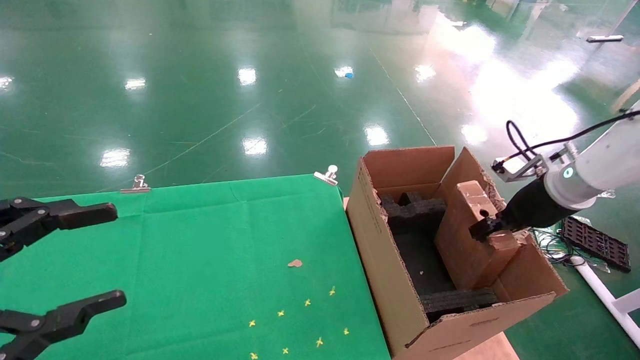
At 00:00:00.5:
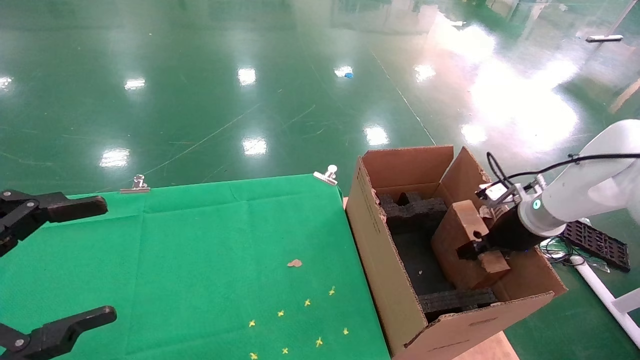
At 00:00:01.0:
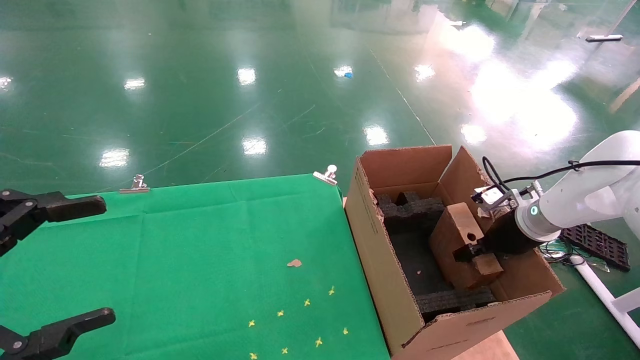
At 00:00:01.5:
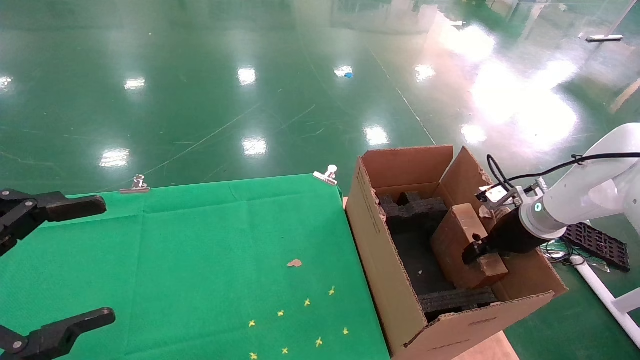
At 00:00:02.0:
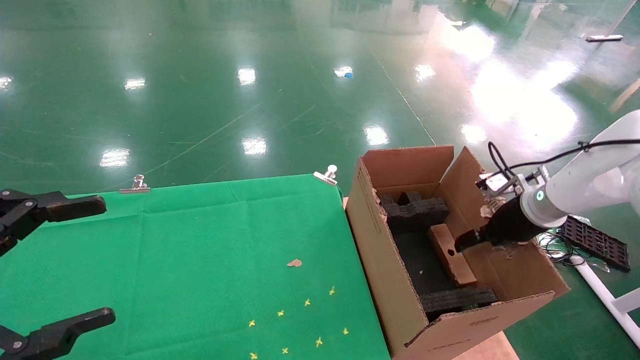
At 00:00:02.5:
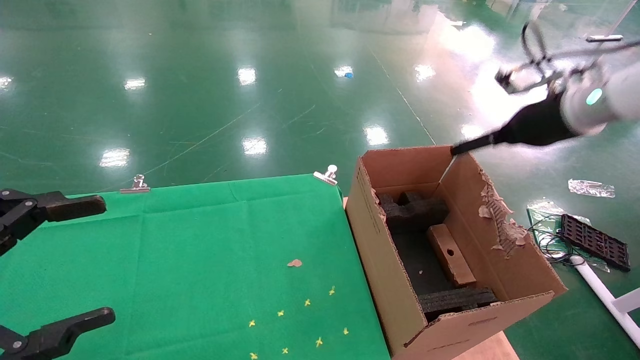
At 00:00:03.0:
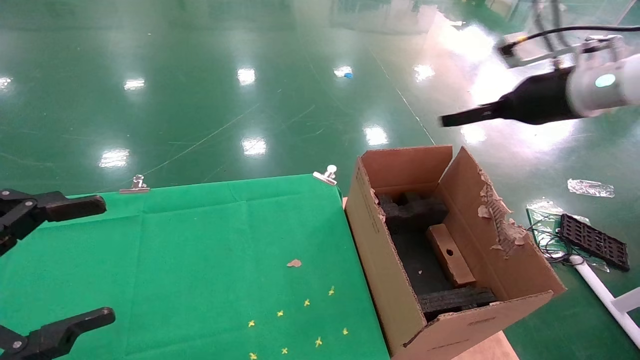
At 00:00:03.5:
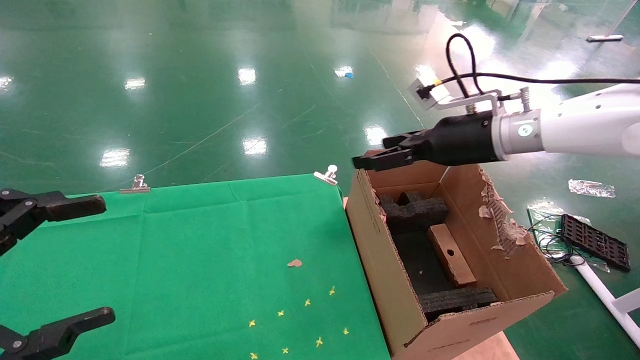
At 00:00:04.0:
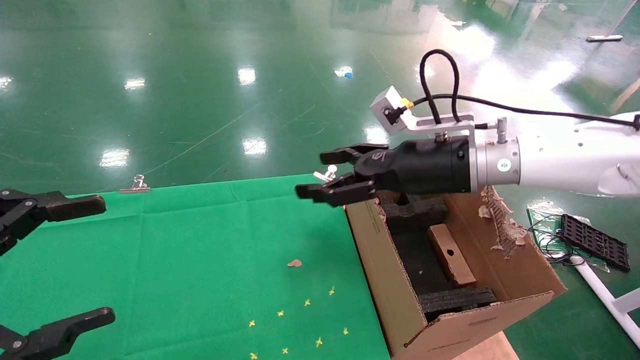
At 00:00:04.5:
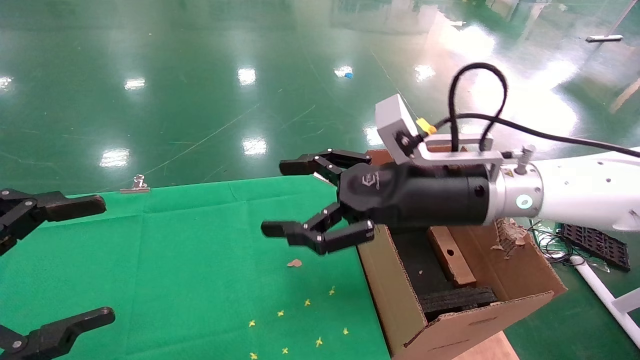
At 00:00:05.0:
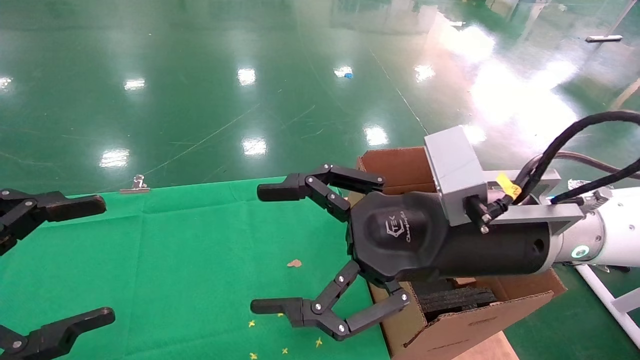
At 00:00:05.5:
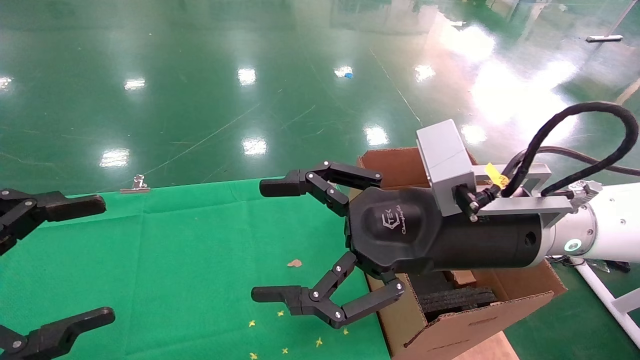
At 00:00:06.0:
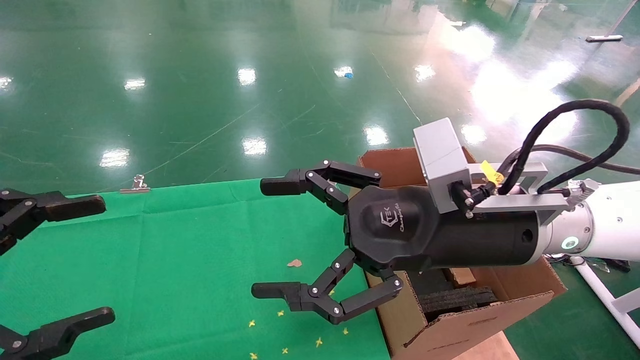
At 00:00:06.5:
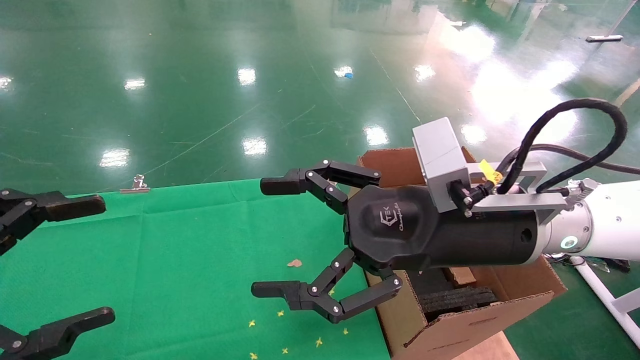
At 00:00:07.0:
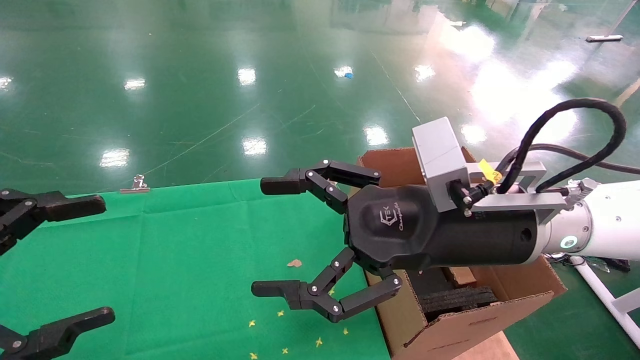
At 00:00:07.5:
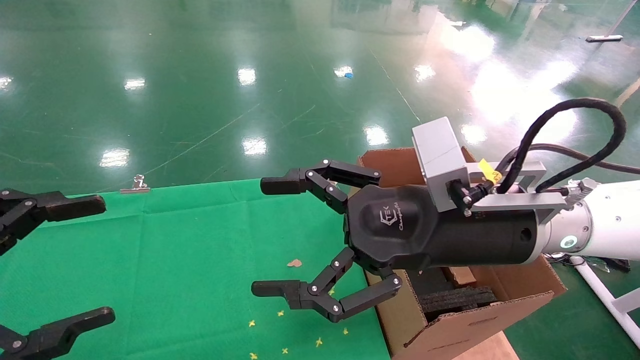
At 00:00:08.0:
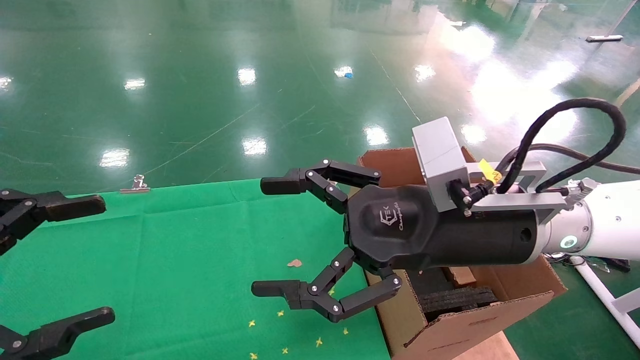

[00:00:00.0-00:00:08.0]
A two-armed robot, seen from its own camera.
Task of the whole recording: using a robotic arm to pick up a cardboard box and palace it the carton.
Step, 00:00:00.0 to 00:00:03.0: Place the mouse and the power cord paper box into the container.
00:00:00.0 to 00:00:02.0: The right gripper opens. The left gripper opens up.
00:00:02.0 to 00:00:04.0: The right gripper heads to the left and upward, covering about 20 cm.
00:00:04.0 to 00:00:06.0: The right gripper is displaced backward by roughly 10 cm.
00:00:06.0 to 00:00:08.0: Both grippers stay about where they are.

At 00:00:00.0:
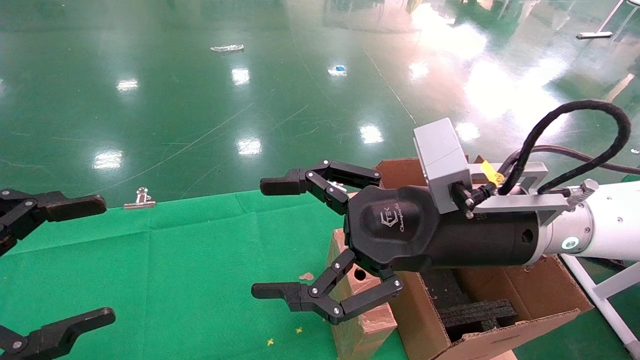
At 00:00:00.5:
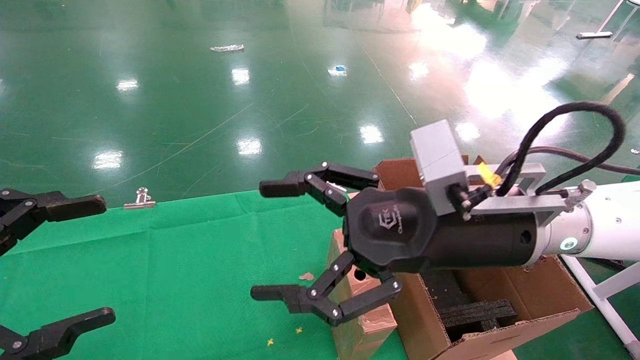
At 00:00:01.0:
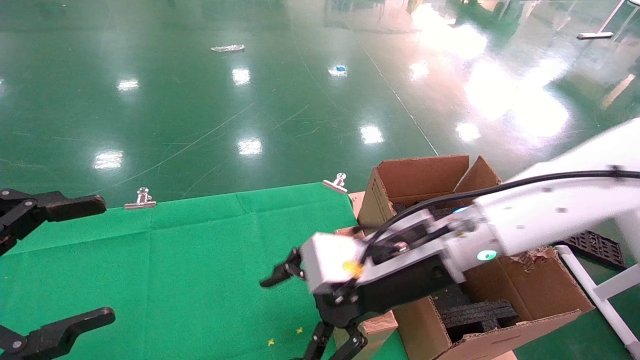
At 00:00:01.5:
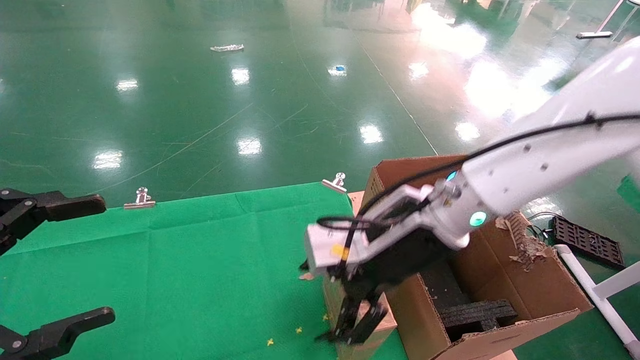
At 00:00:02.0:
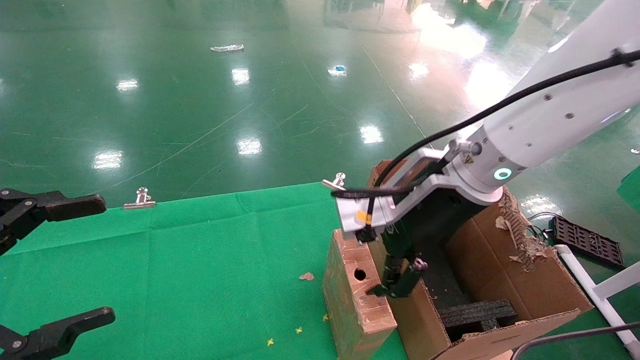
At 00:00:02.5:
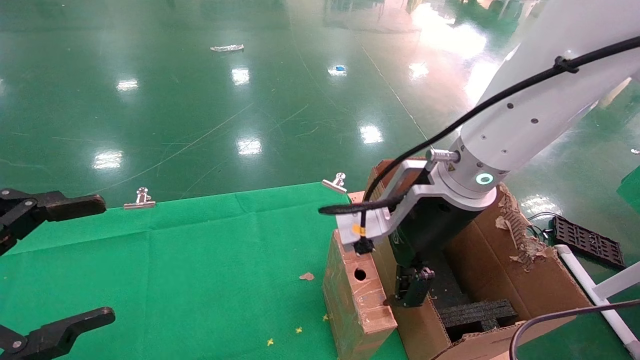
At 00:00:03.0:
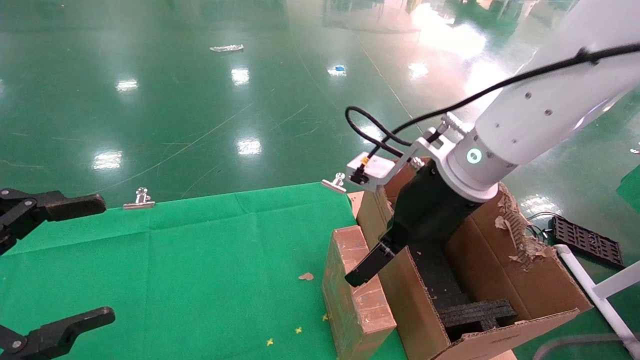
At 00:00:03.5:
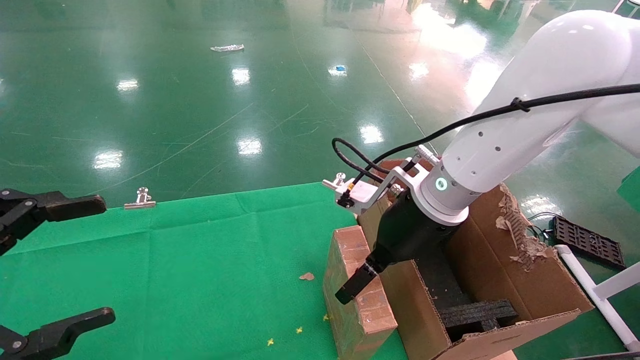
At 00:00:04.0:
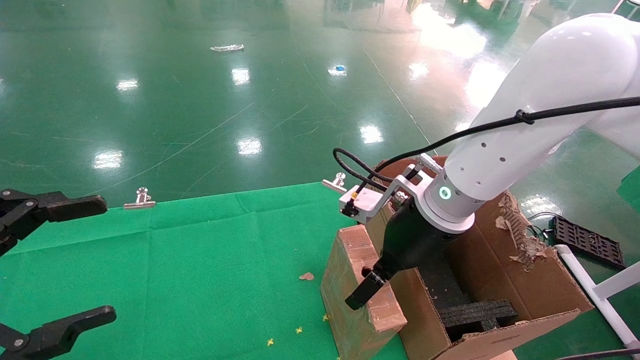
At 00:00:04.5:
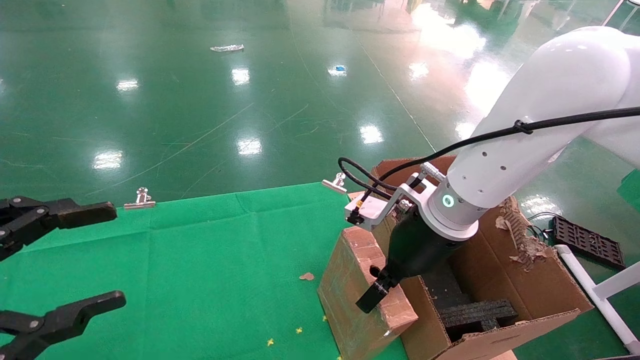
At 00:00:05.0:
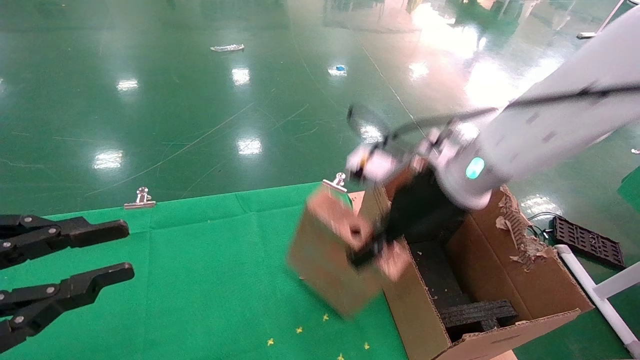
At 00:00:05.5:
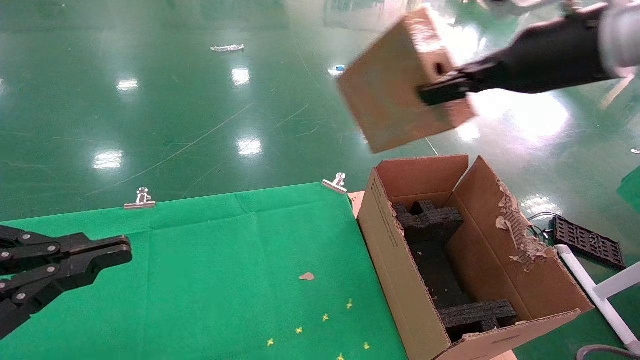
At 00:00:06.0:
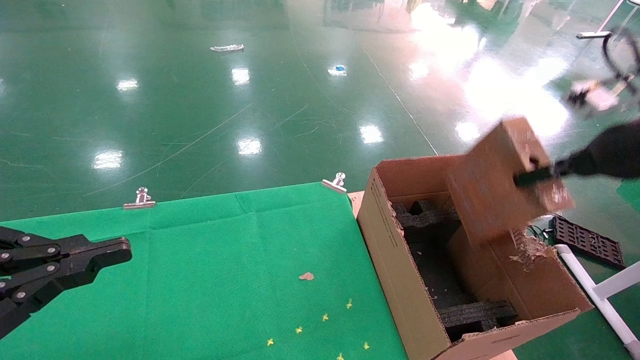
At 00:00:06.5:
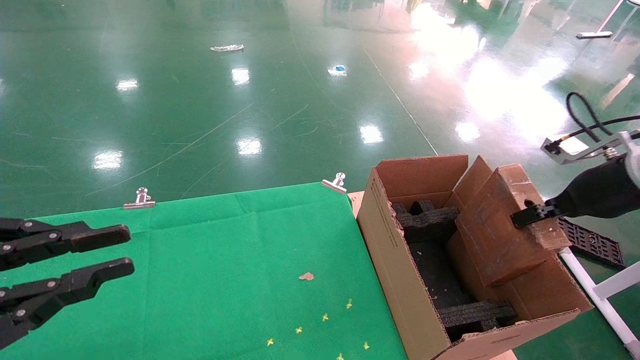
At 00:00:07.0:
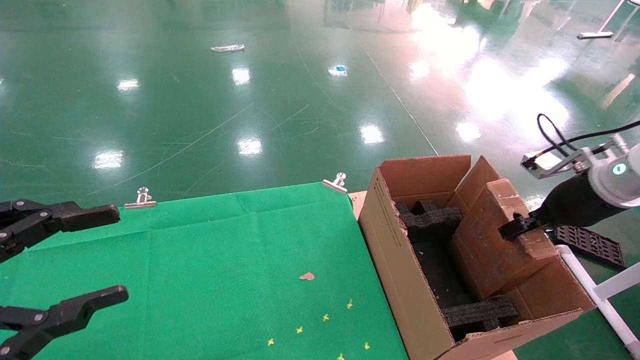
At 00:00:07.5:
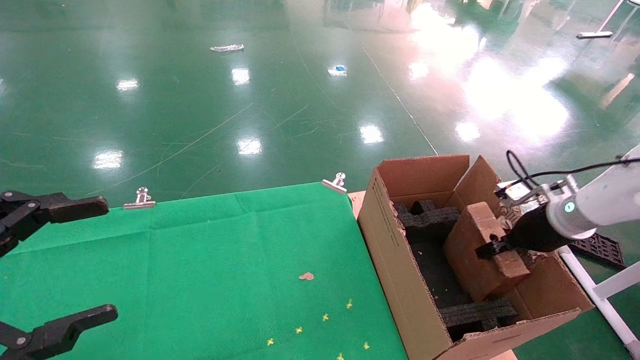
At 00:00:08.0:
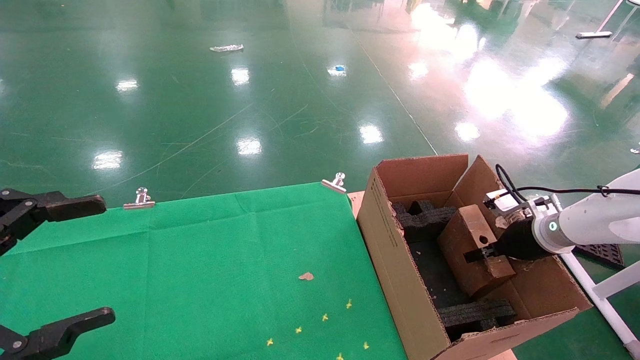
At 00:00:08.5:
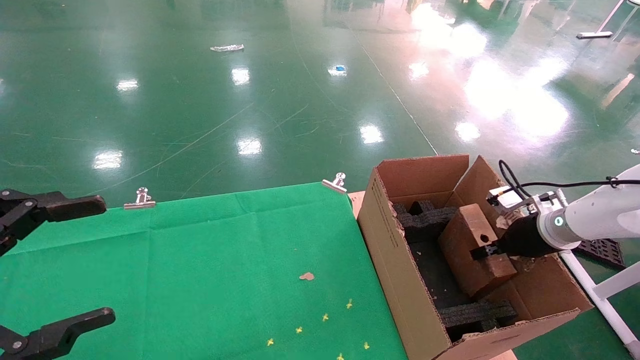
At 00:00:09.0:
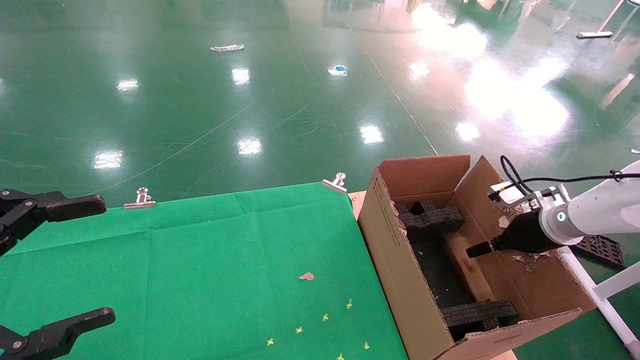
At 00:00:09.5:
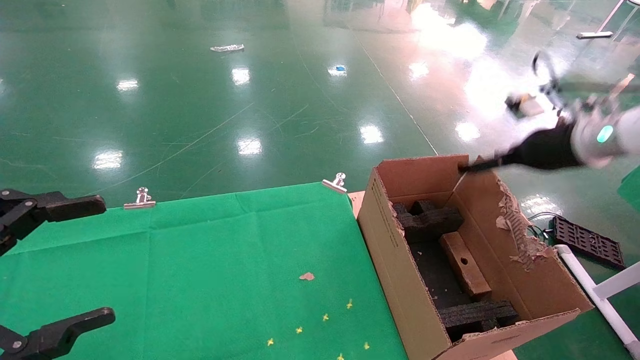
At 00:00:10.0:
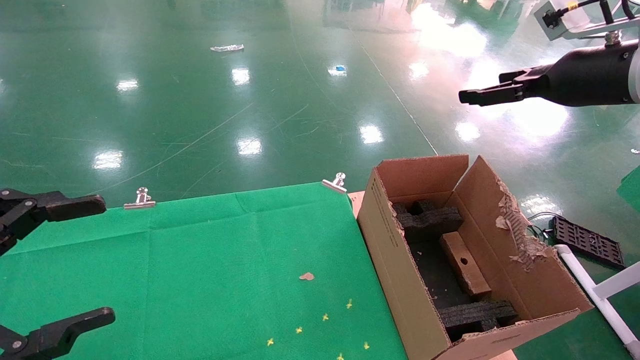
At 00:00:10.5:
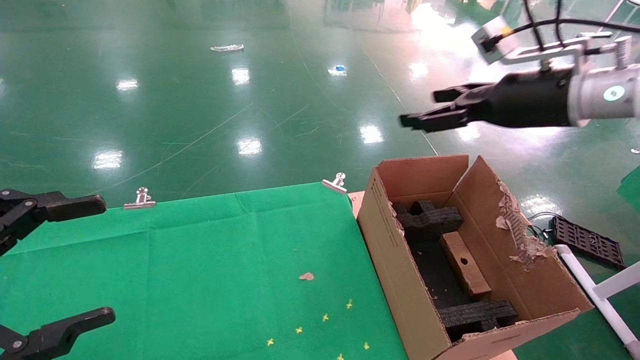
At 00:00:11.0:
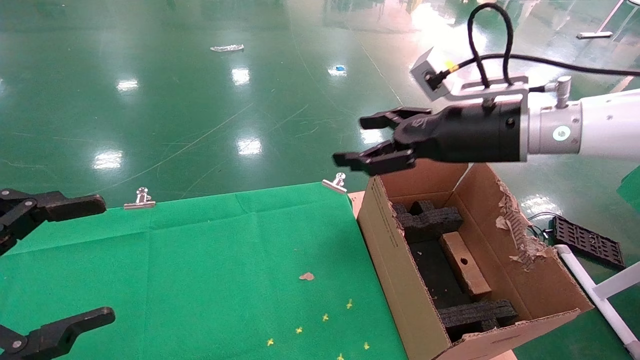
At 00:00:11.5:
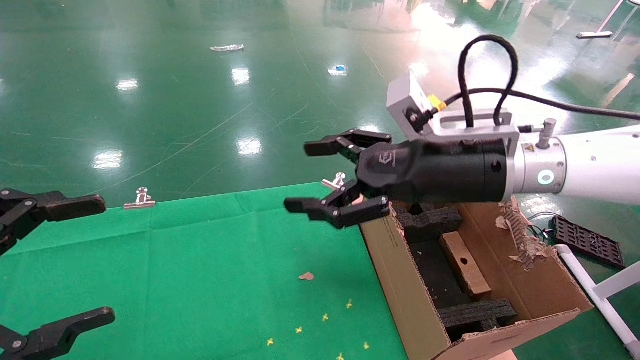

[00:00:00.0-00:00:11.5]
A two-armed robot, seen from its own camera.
Task of the whole recording: using a robotic arm to pick up a cardboard box and palace it the carton.
Step, 00:00:01.0 to 00:00:04.5: Pick up the mouse and the power cord paper box.
Step, 00:00:05.0 to 00:00:09.0: Place the mouse and the power cord paper box into the container.
00:00:00.0 to 00:00:02.0: The right gripper heads forward, covering approximately 5 cm.
00:00:02.0 to 00:00:04.0: The right gripper moves some 5 cm.
00:00:04.0 to 00:00:06.0: The left gripper closes; the right gripper heads to the right, covering roughly 25 cm, and closes up.
00:00:06.0 to 00:00:07.5: The left gripper opens up. Meanwhile the right gripper is displaced downward and forward by roughly 20 cm.
00:00:07.5 to 00:00:09.5: The right gripper travels upward by roughly 15 cm, and opens up.
00:00:09.5 to 00:00:11.5: The right gripper goes some 25 cm to the left.
